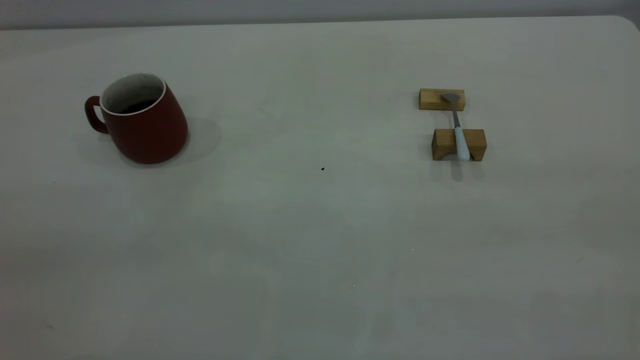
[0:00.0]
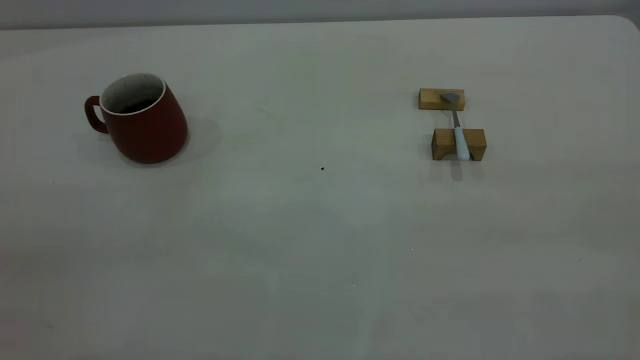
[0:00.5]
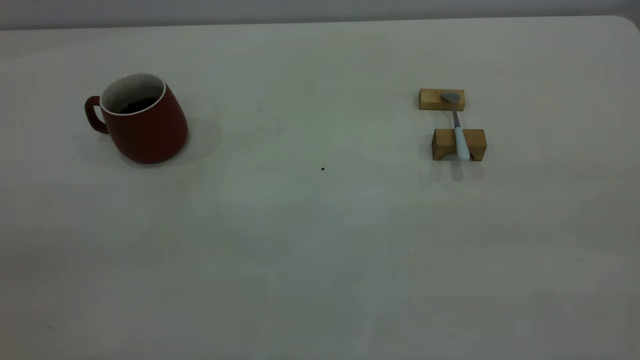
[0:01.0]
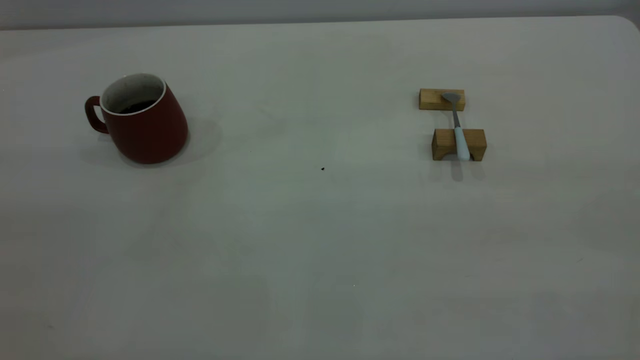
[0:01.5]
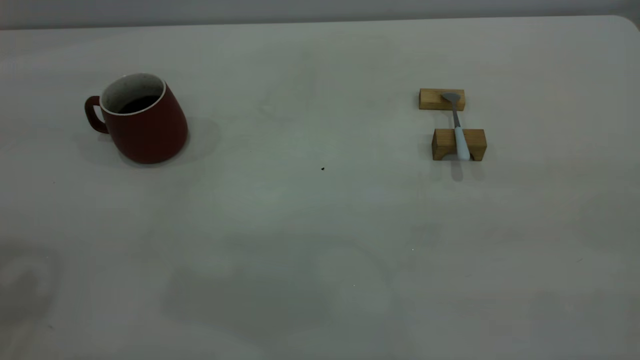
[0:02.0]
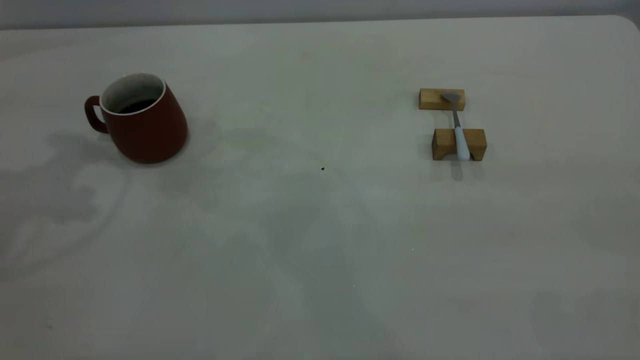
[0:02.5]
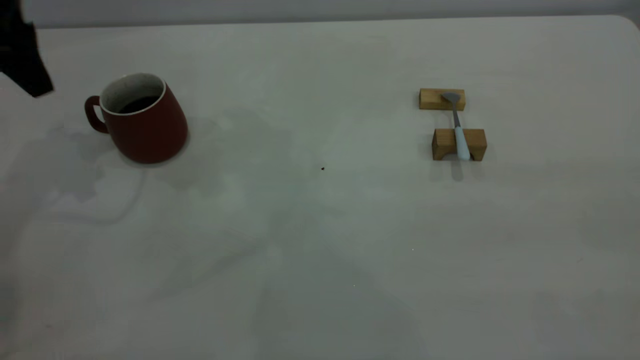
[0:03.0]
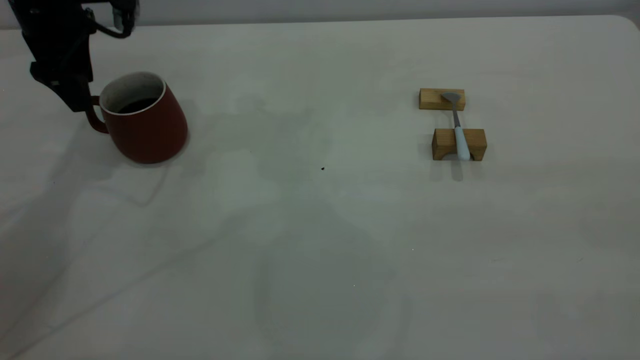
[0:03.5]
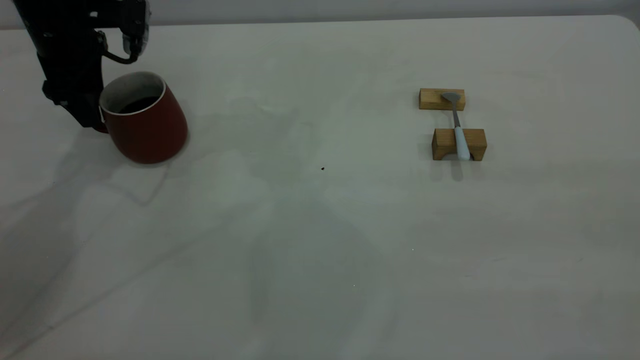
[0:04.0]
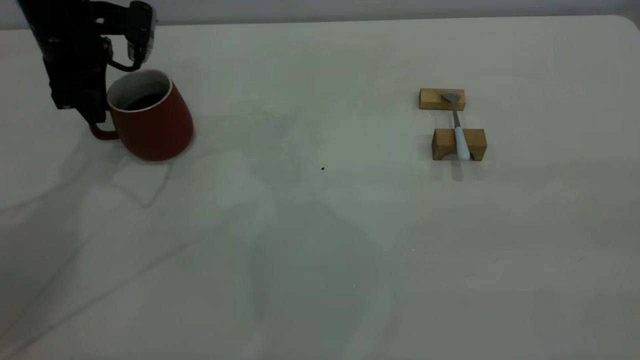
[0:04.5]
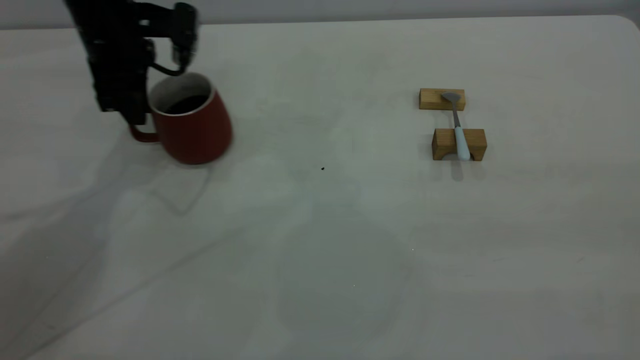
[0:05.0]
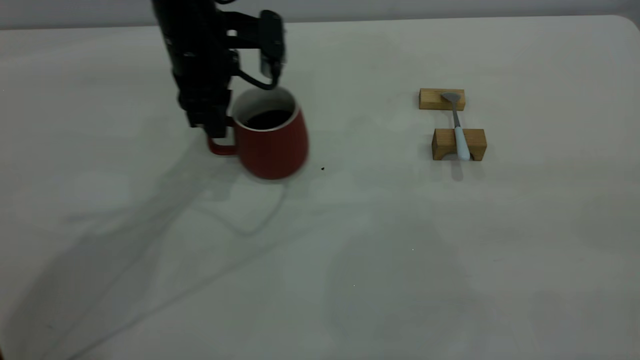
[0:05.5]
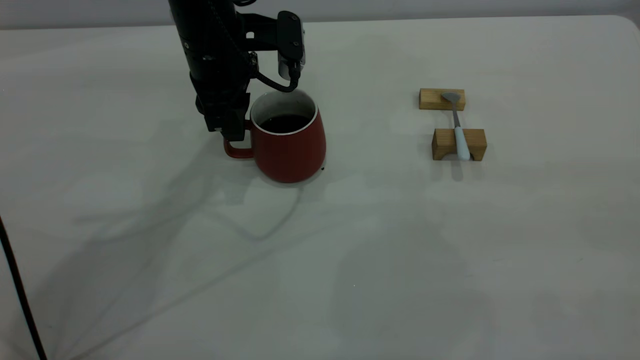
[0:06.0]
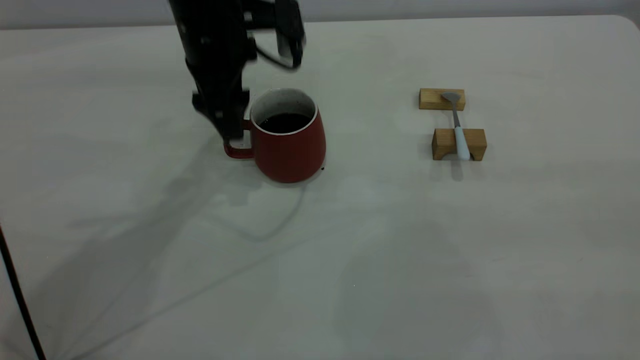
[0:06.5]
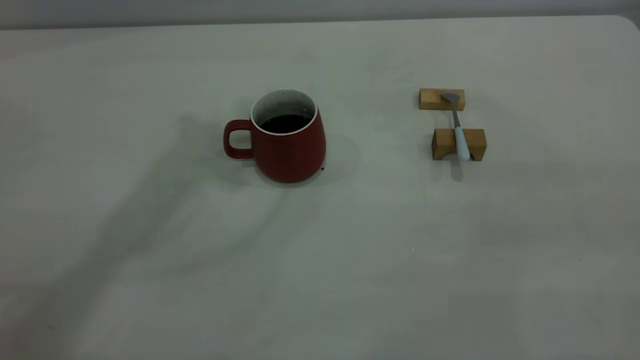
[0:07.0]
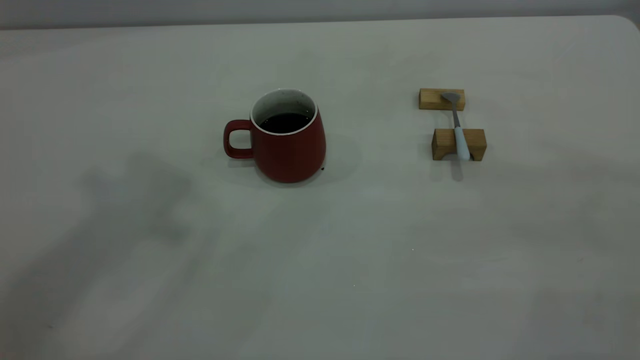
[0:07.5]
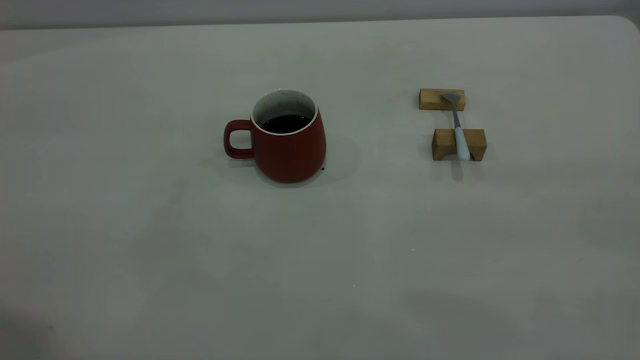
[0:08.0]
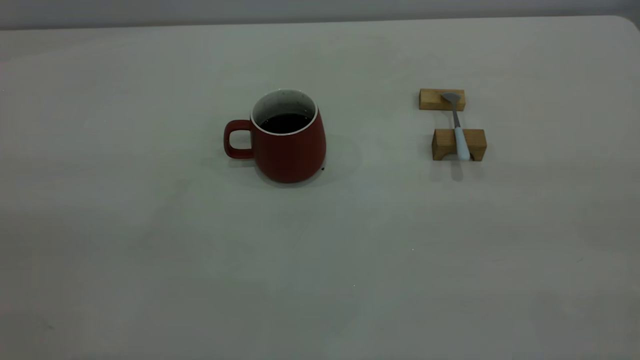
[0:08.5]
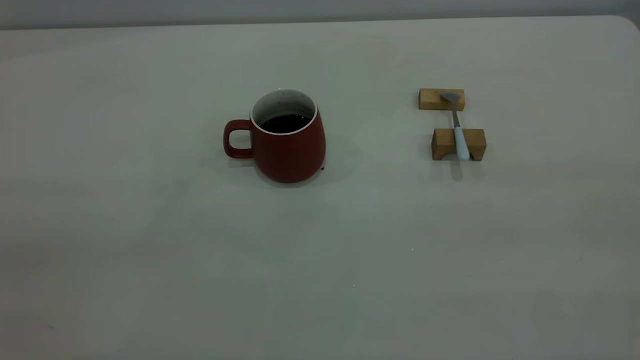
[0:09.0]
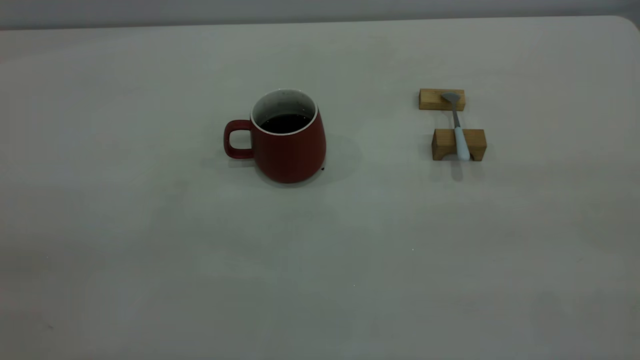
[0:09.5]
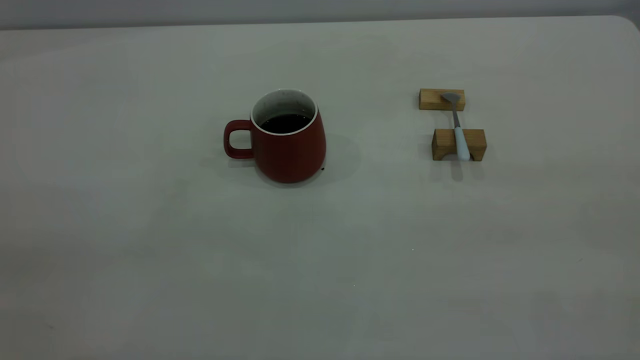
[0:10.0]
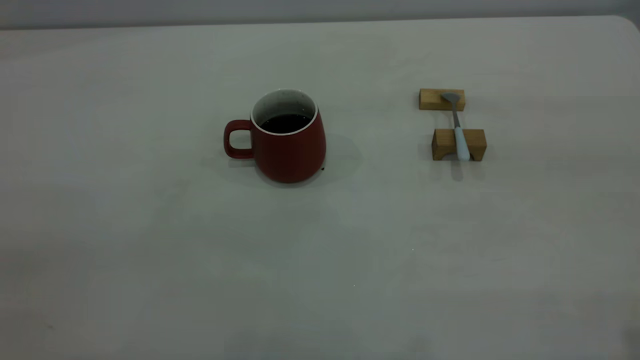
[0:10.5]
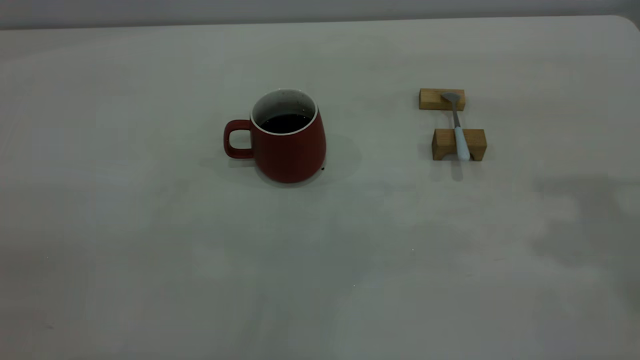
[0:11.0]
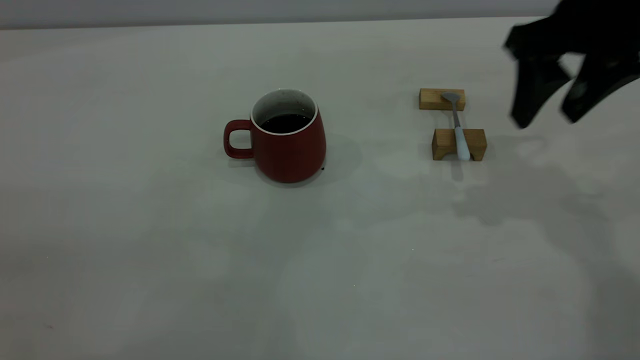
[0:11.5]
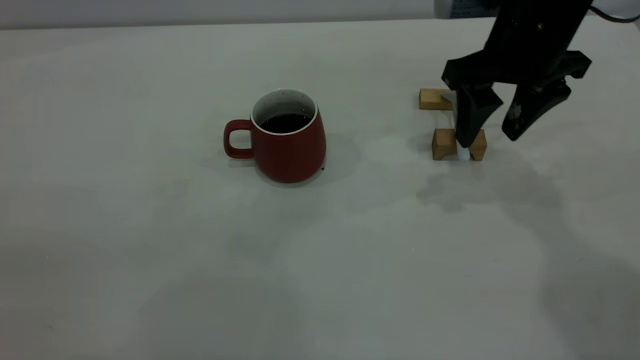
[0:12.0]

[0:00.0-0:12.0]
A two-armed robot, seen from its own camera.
Step, 0:00.0 to 0:06.5: Move the cup with coffee to the center of view.
0:02.0 to 0:04.0: The left gripper goes approximately 35 cm forward and downward.
0:04.0 to 0:06.0: The left gripper travels to the right by some 15 cm, and closes its fingers.
0:06.0 to 0:08.0: The left gripper moves upward, backward and to the left, about 50 cm, and opens and closes again.
0:10.0 to 0:12.0: The right gripper goes some 40 cm forward and downward.

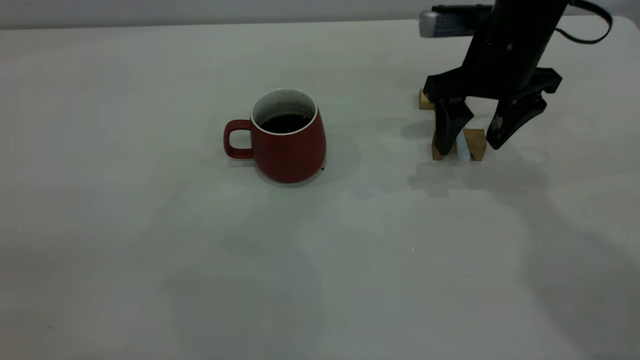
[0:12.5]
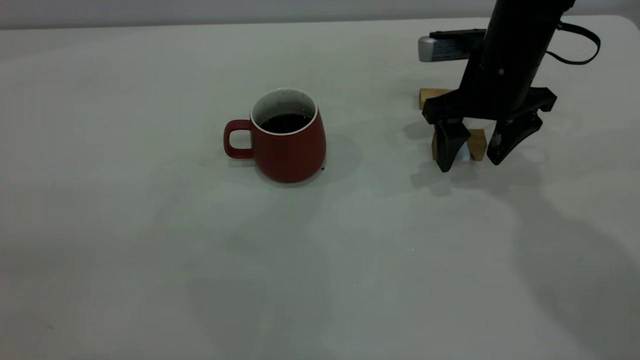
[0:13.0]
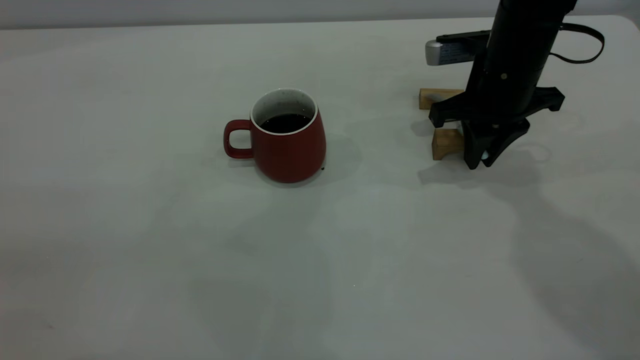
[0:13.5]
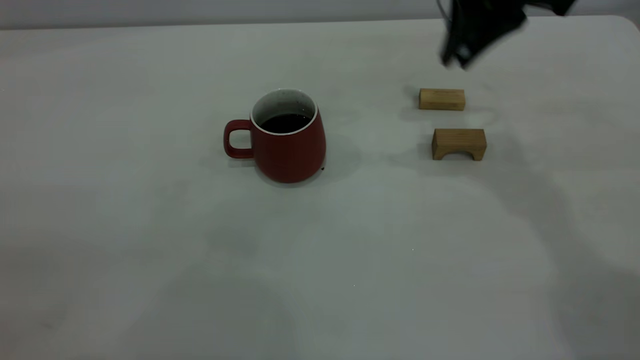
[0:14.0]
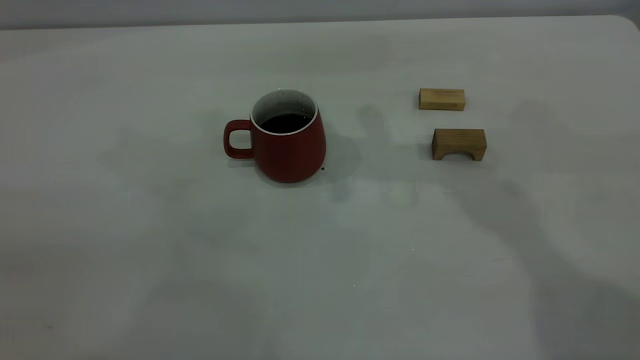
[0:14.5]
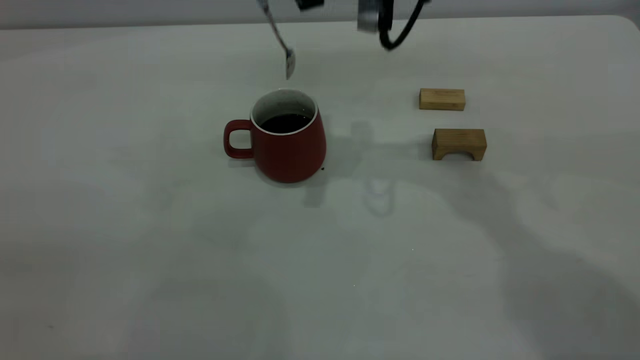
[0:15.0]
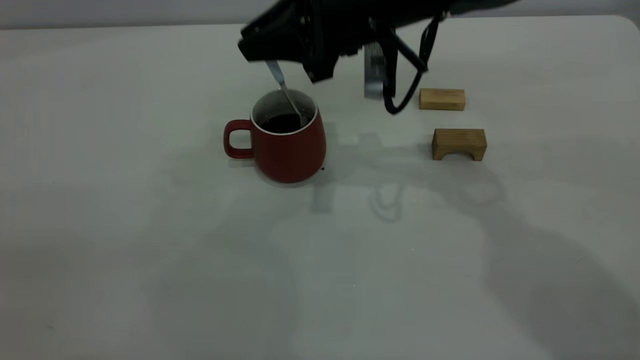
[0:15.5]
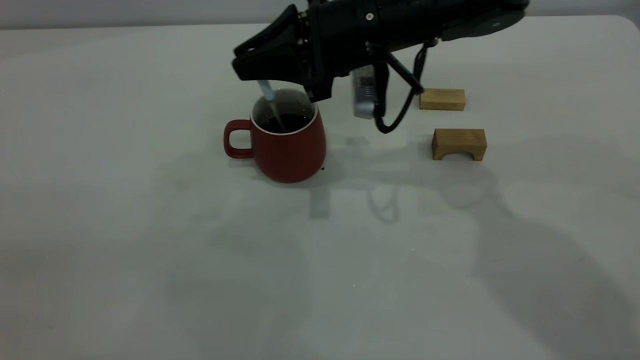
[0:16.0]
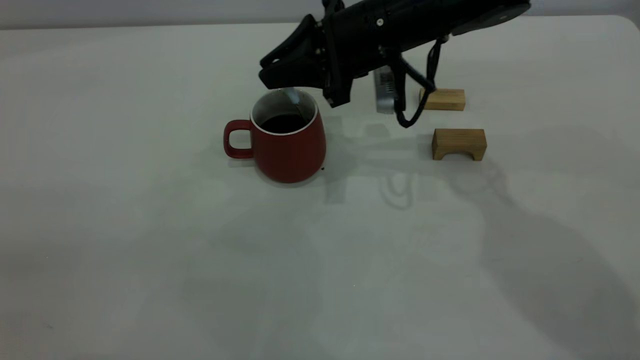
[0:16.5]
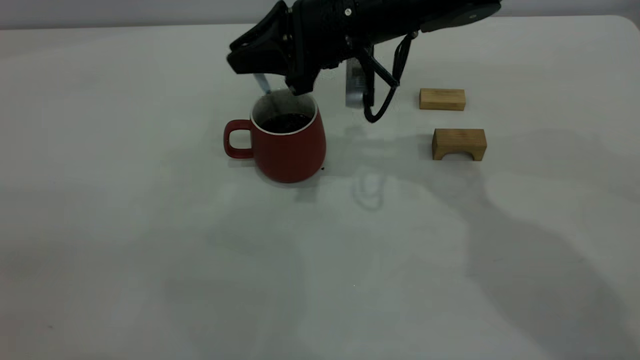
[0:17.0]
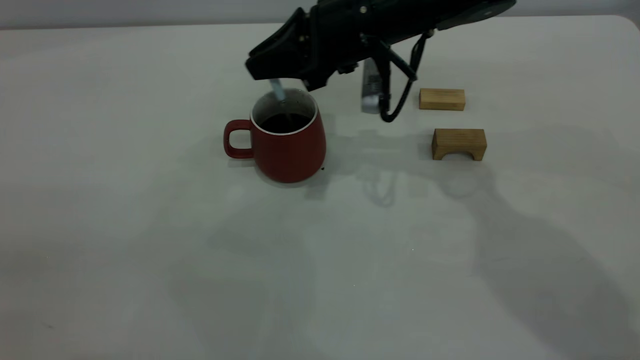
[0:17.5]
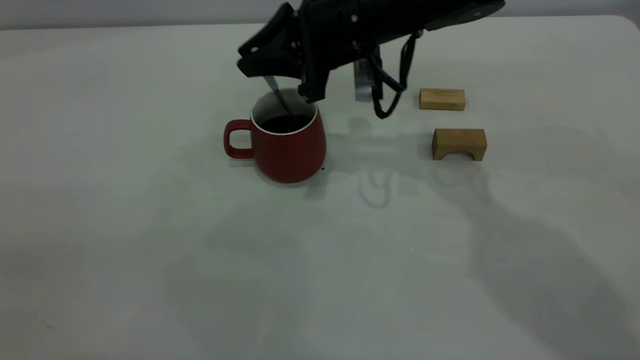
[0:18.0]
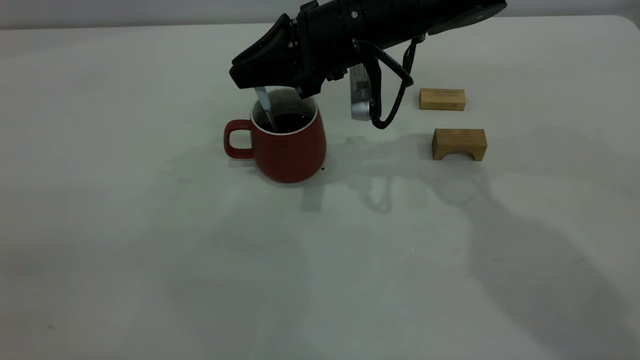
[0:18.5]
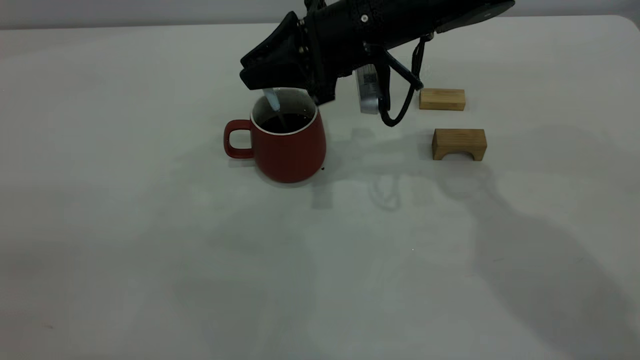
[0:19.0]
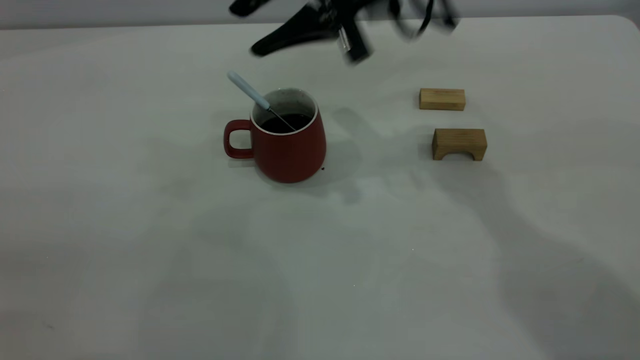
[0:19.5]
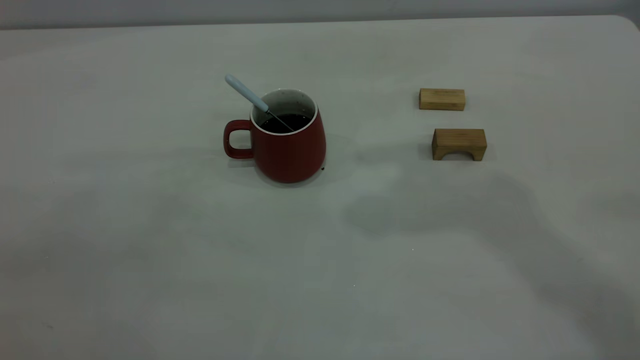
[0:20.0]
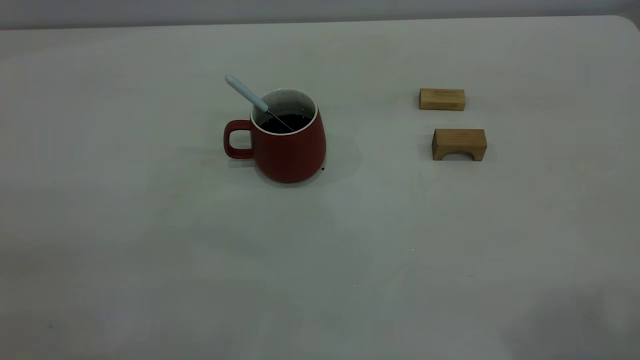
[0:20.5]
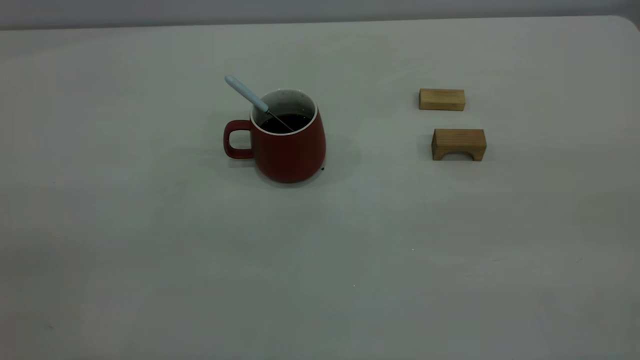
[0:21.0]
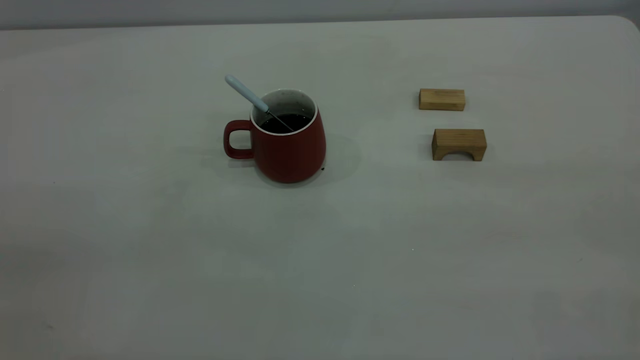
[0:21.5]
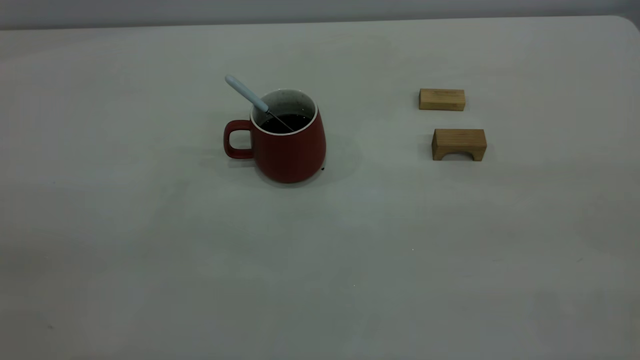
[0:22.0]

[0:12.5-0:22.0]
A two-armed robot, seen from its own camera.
Step, 0:14.0 to 0:19.0: Stir the coffee in the cup.
0:12.5 to 0:14.5: The right gripper shifts about 20 cm upward and to the left, and closes up.
0:14.5 to 0:16.5: The right gripper heads downward, covering some 15 cm.
0:16.5 to 0:18.0: There are only small adjustments of the grippers.
0:18.0 to 0:20.0: The right gripper travels upward by about 30 cm, and opens up.
